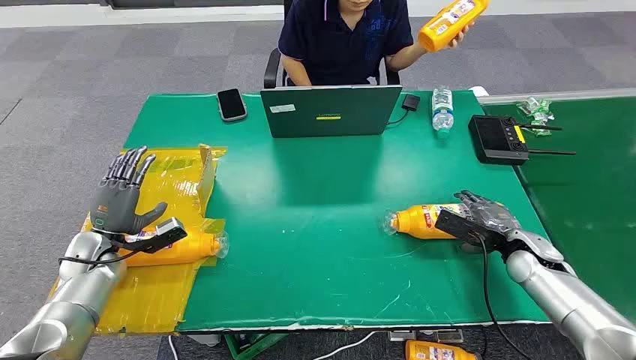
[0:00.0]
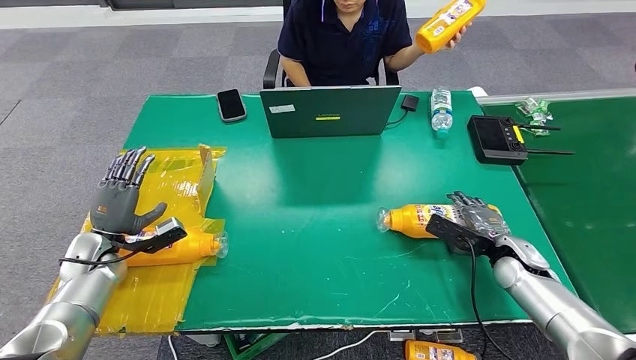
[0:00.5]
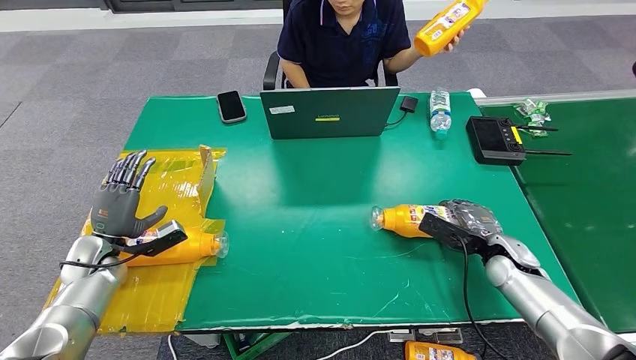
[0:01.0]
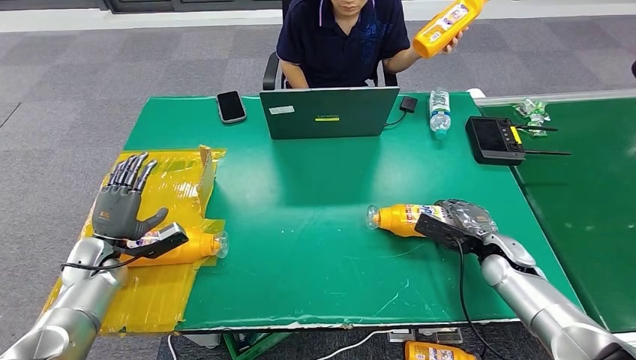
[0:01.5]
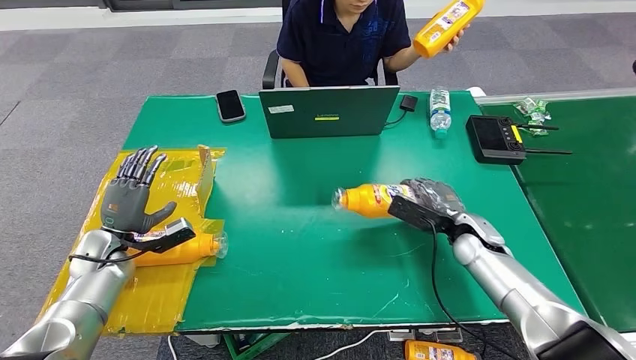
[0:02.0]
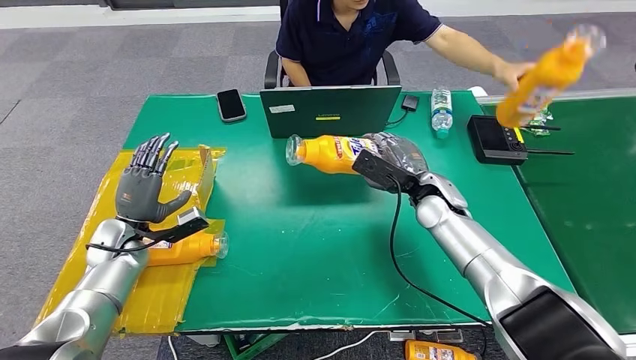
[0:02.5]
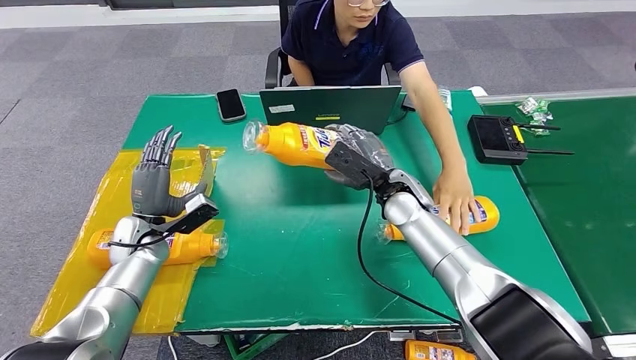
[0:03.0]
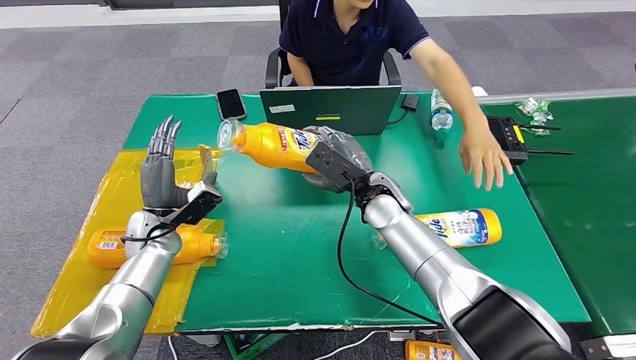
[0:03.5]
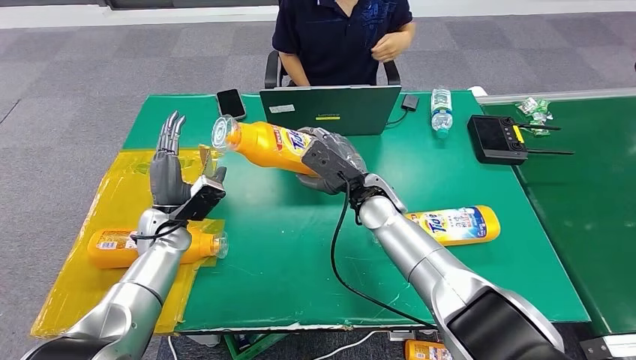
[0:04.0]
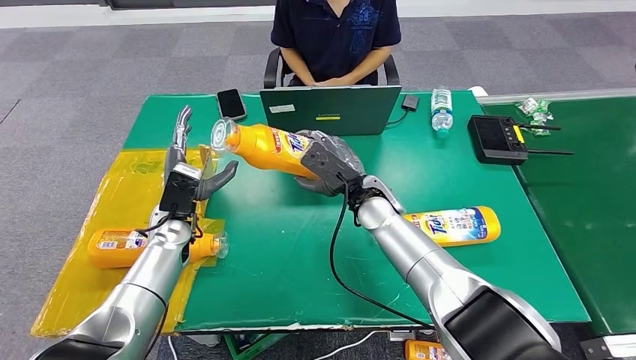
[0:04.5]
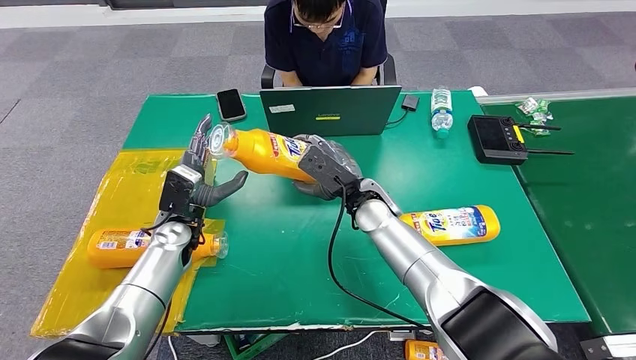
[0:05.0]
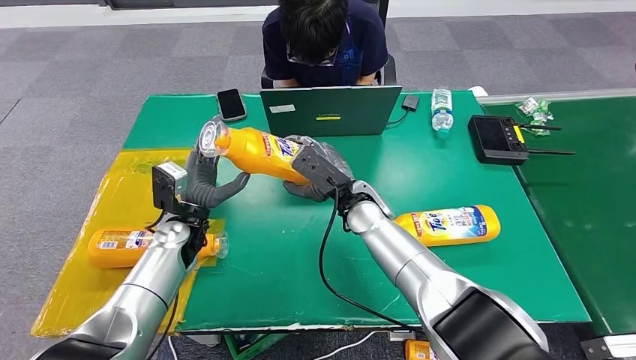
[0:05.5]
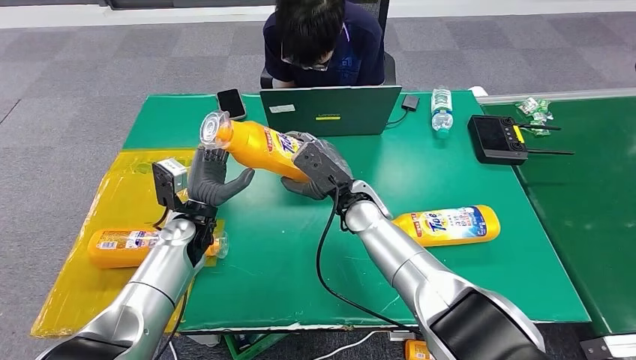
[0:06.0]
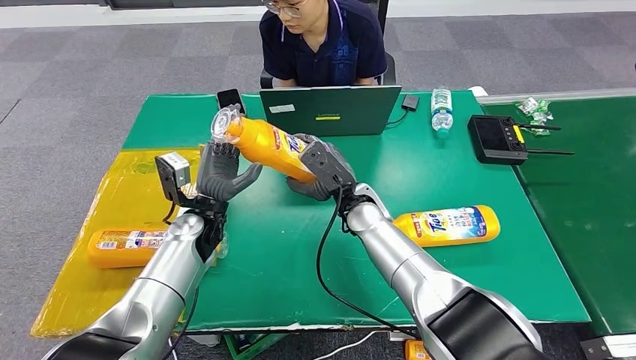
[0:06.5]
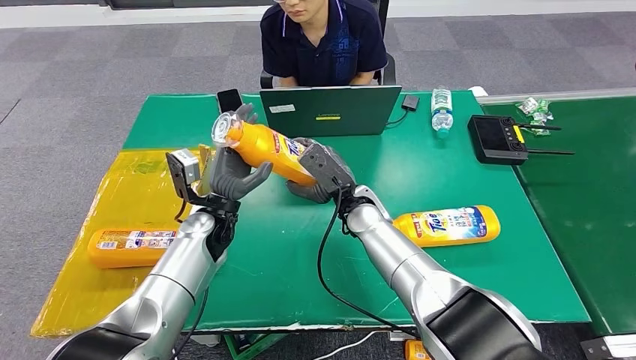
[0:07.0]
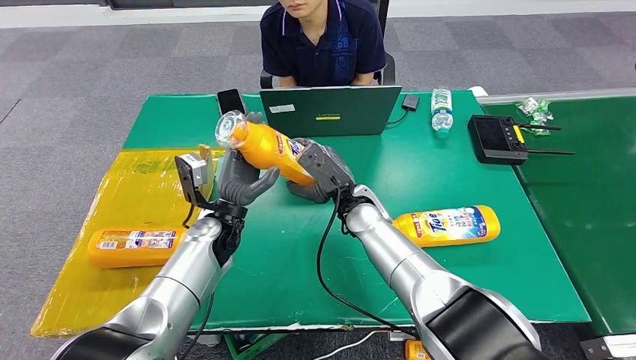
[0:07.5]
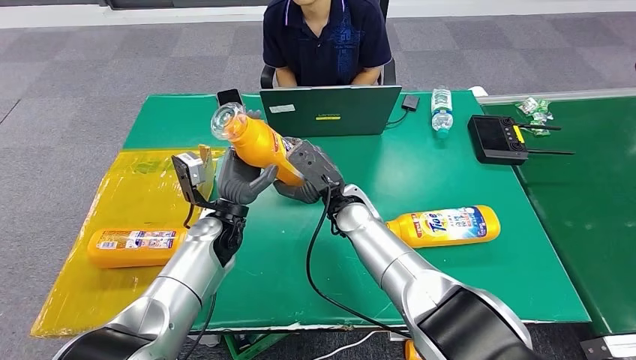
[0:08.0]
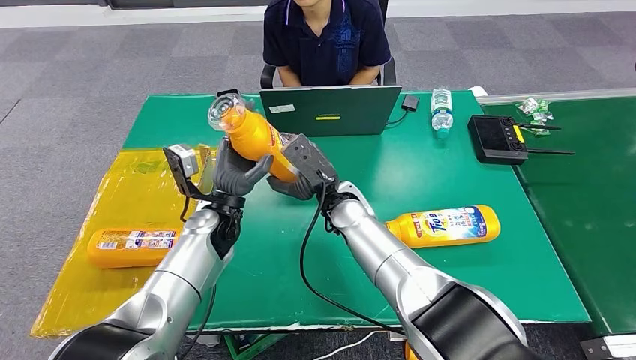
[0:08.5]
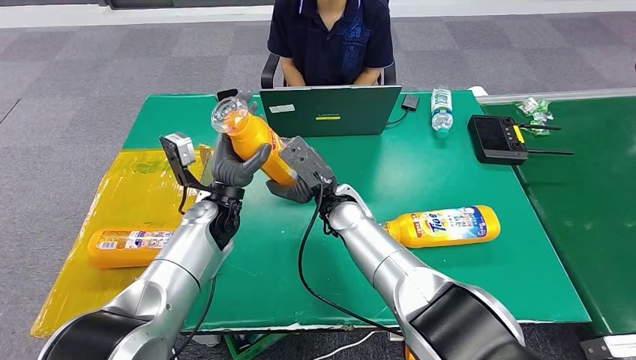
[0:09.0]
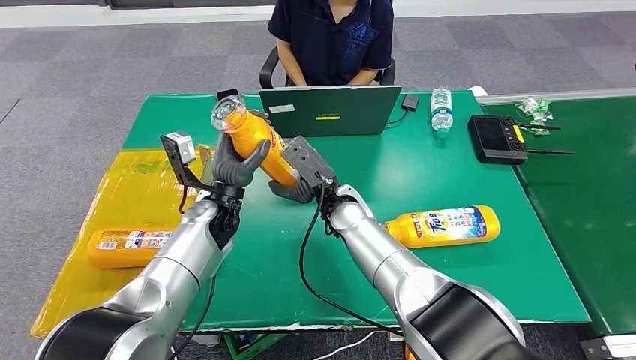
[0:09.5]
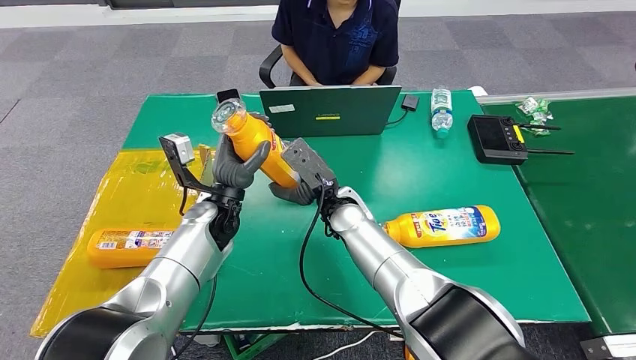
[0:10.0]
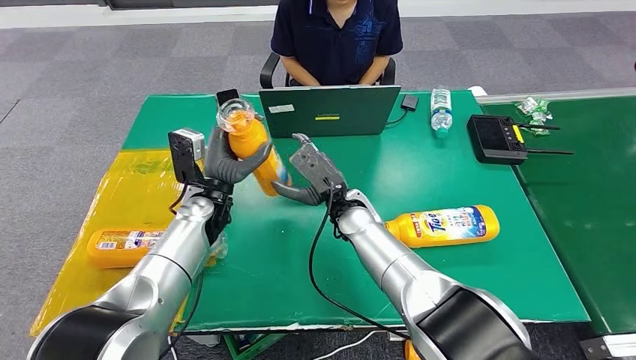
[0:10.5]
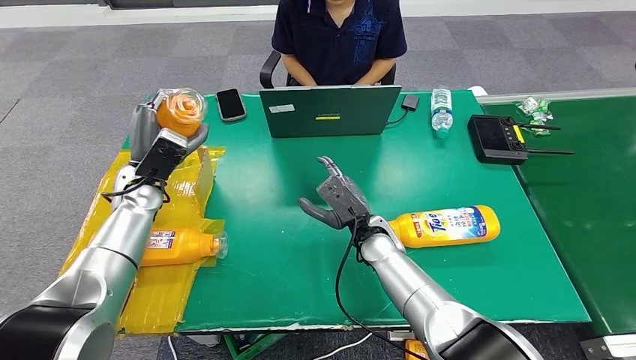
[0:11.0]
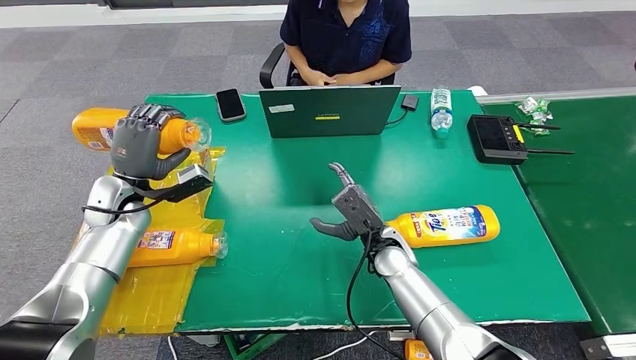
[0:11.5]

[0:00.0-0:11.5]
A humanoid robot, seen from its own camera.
Step, 0:00.0 to 0:02.0: Pick up the bottle from the table.
Step, 0:02.5 to 0:11.5: Turn the bottle to the front side.
0:04.0 to 0:06.0: The left hand goes about 5 cm to the right.
0:06.0 to 0:07.5: The left hand travels to the right by some 5 cm.
0:07.5 to 0:09.5: There are only small adjustments of the hands.
